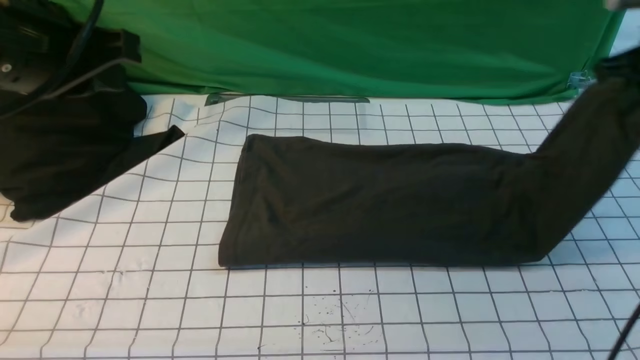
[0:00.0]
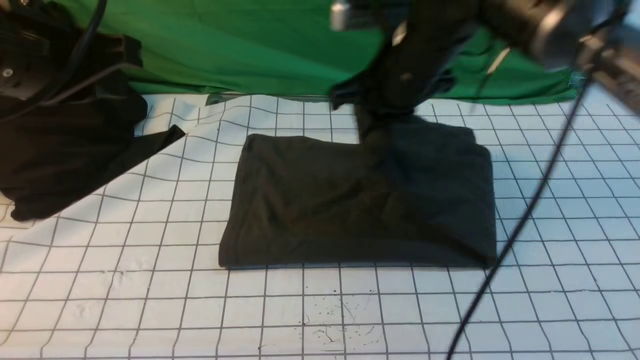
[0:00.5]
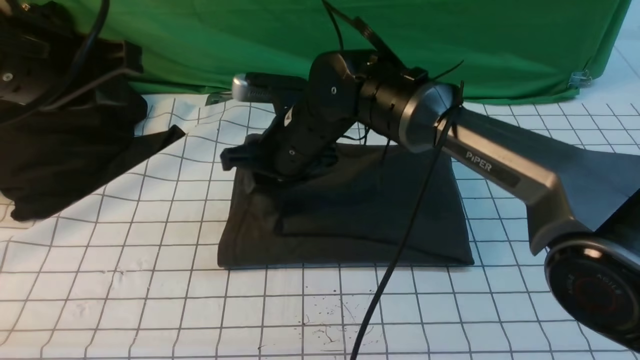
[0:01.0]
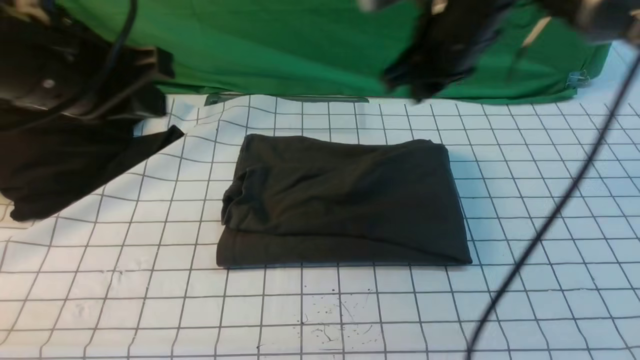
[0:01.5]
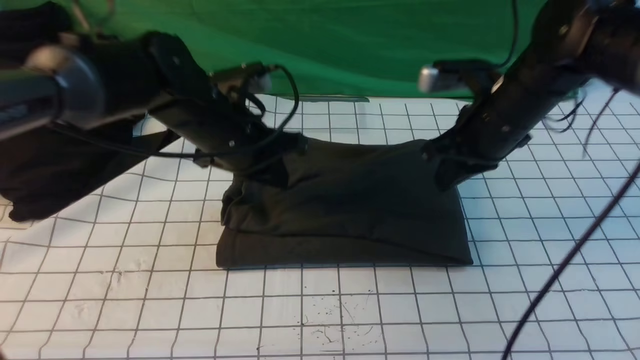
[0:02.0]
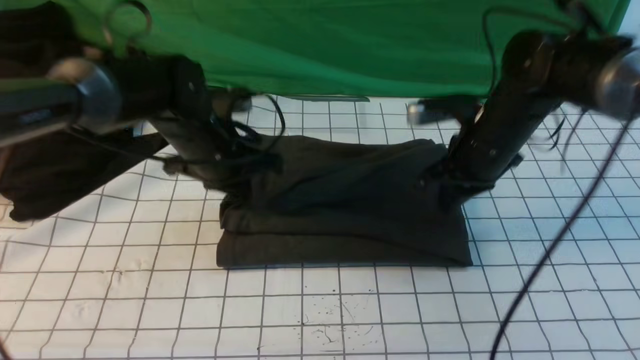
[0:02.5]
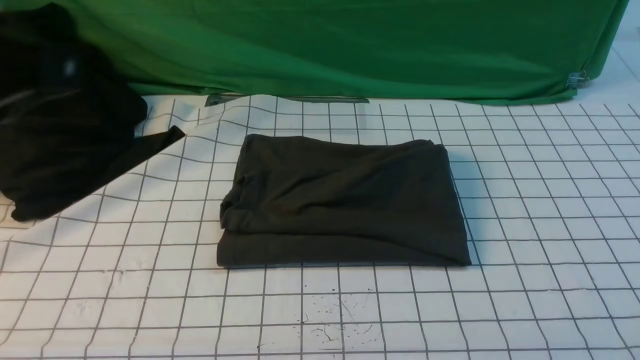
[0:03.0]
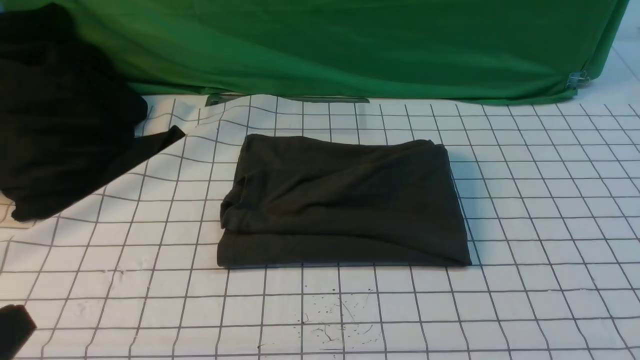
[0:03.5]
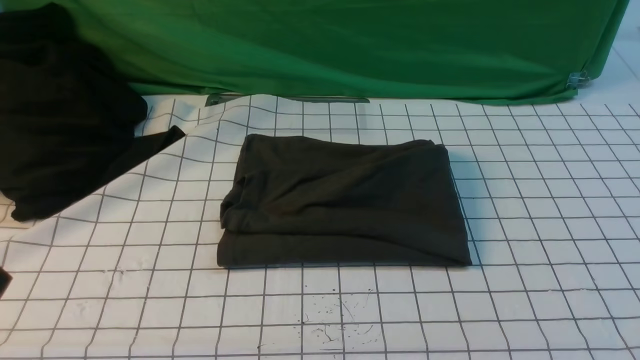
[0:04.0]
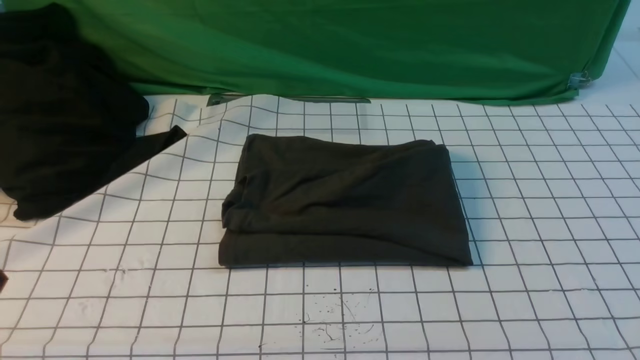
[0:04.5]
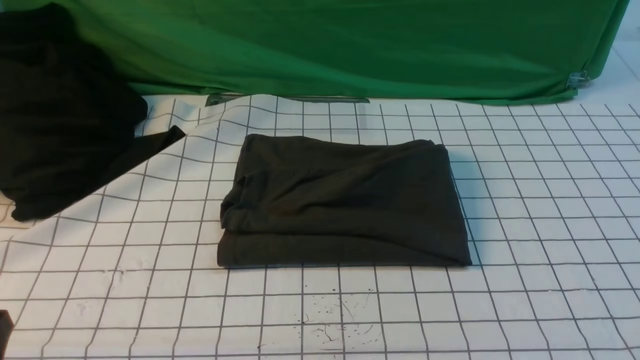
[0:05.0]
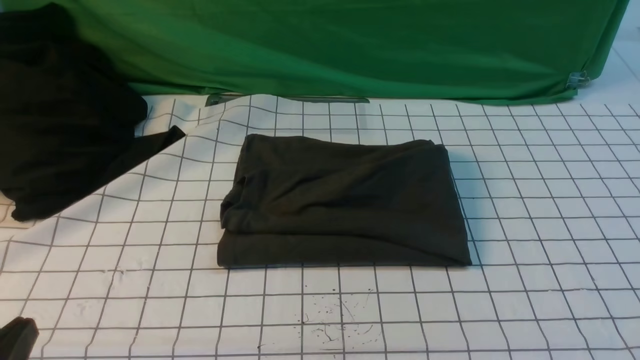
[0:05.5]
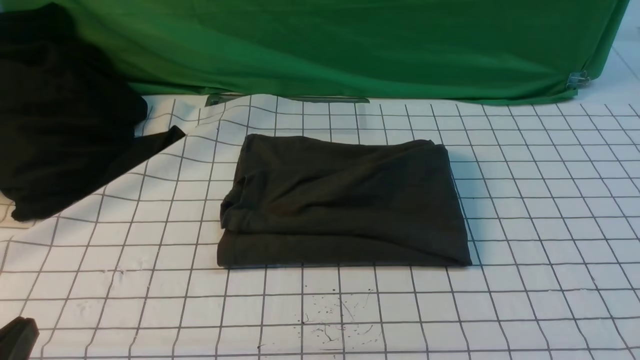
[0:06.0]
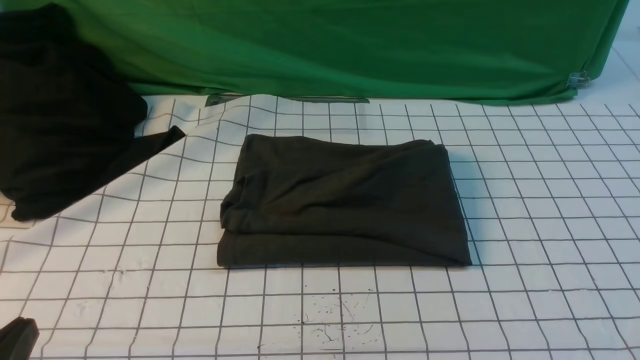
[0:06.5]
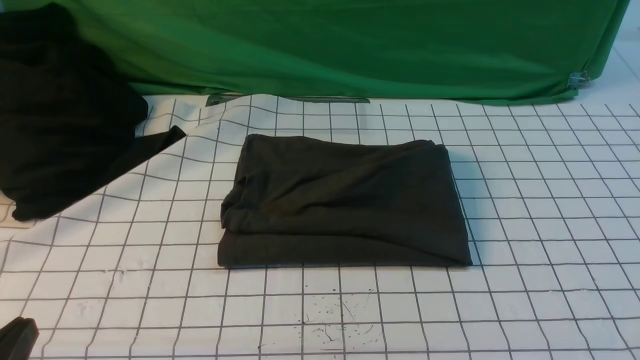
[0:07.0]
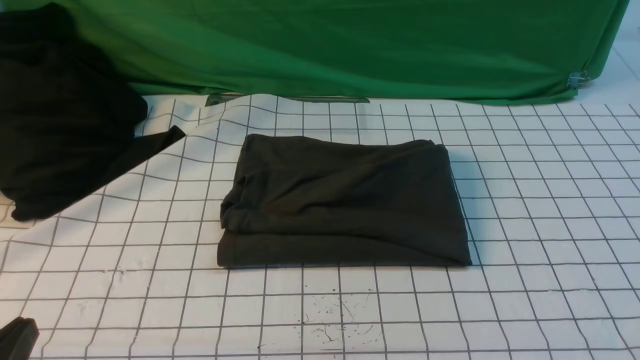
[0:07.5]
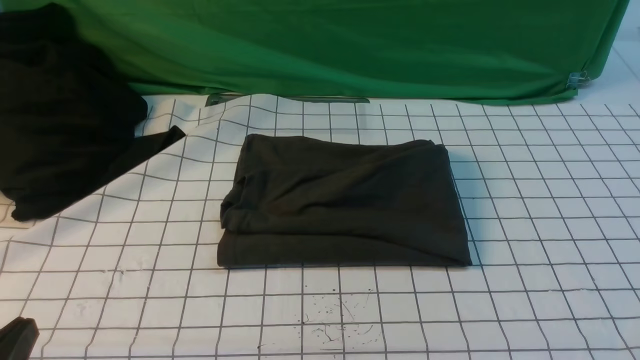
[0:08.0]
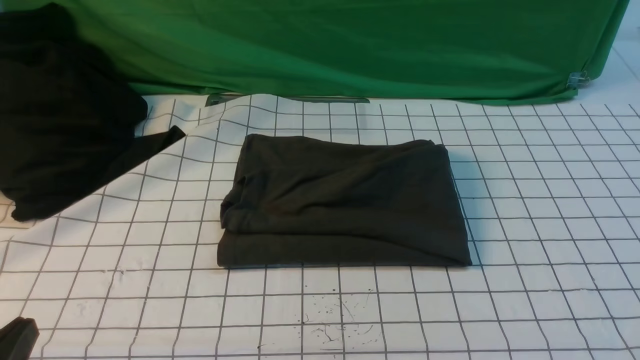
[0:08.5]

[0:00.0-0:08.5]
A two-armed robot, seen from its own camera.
Step, 0:00.0 to 0:01.0: use the right arm to drag the right edge of the fabric to the left and folds it over the left edge.
0:00.0 to 0:02.0: The left gripper travels downward, forward and to the right by some 25 cm. The right gripper goes approximately 15 cm to the left and downward, and opens and closes again.
0:02.0 to 0:04.0: The grippers both shift backward by approximately 35 cm.
0:04.0 to 0:06.5: The left gripper travels downward by approximately 10 cm.

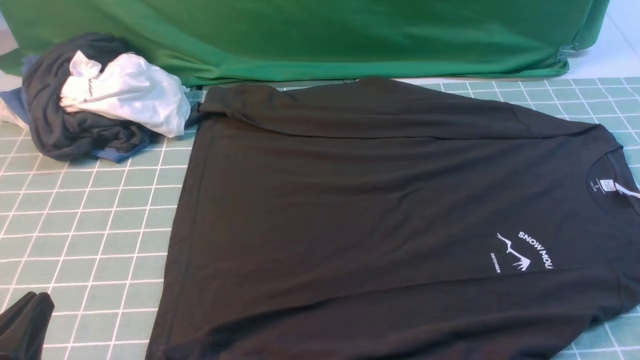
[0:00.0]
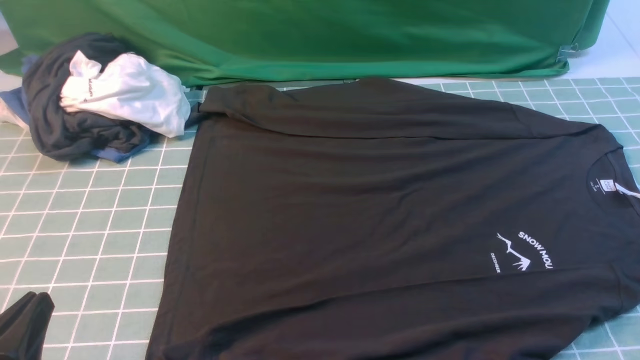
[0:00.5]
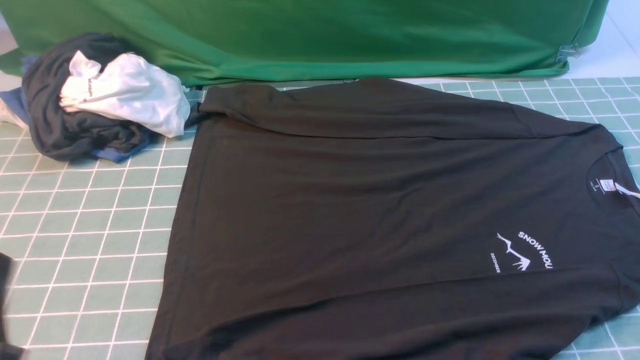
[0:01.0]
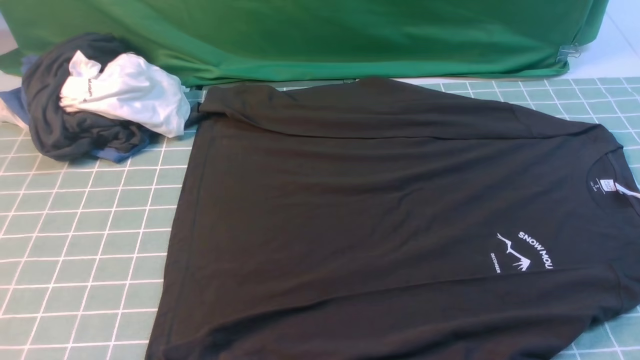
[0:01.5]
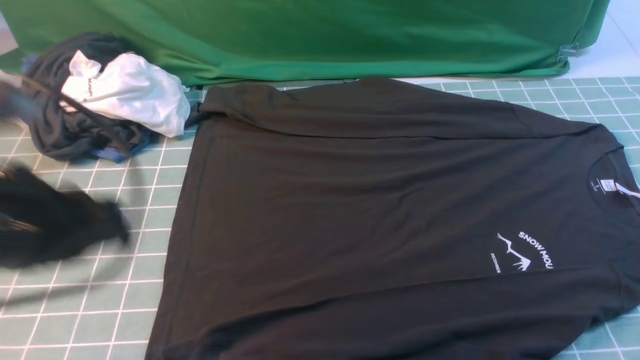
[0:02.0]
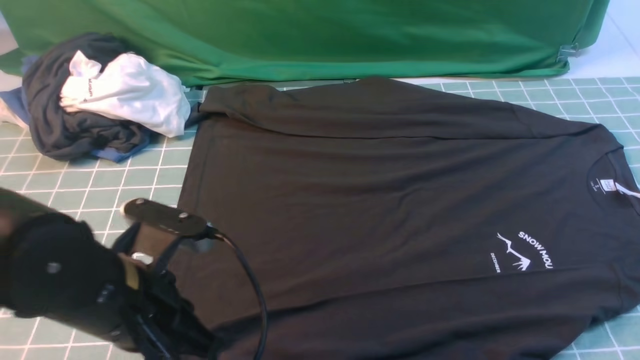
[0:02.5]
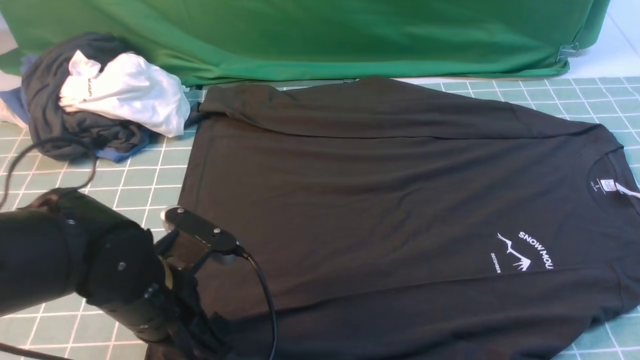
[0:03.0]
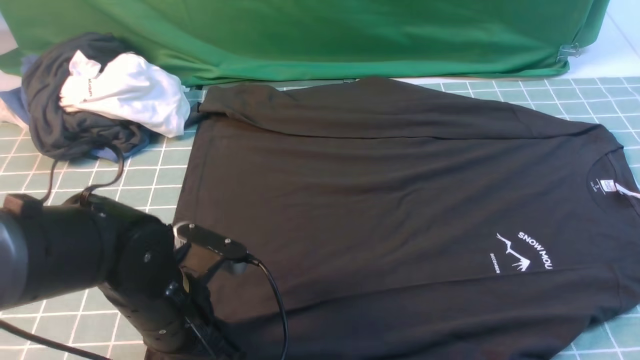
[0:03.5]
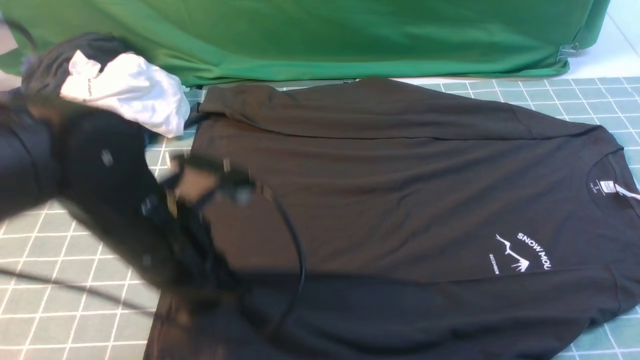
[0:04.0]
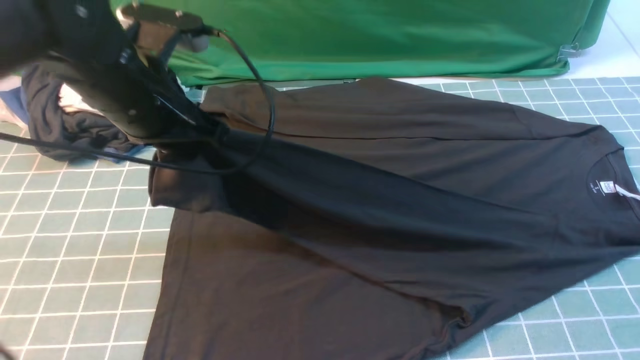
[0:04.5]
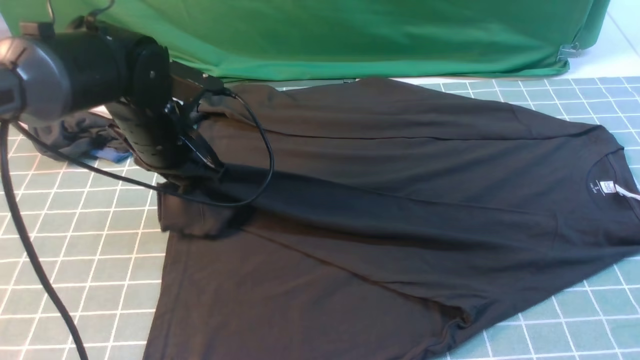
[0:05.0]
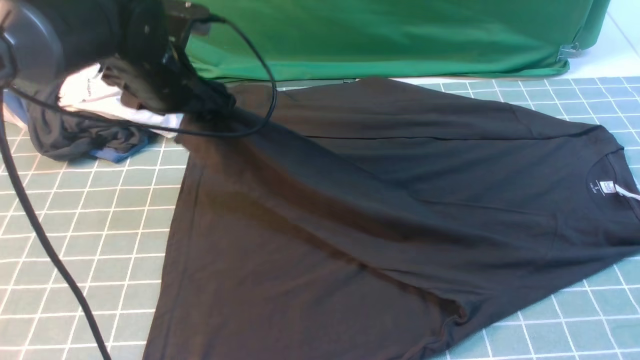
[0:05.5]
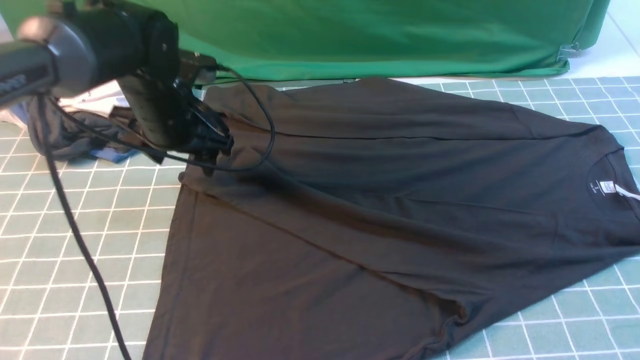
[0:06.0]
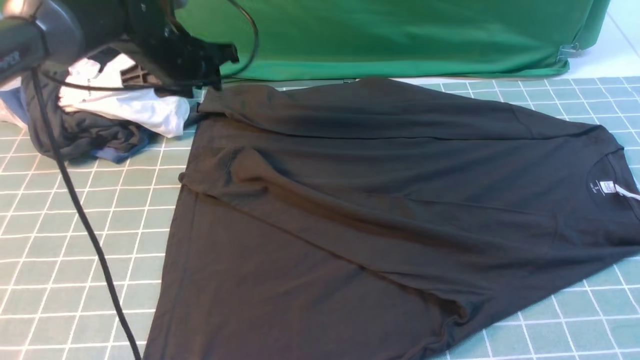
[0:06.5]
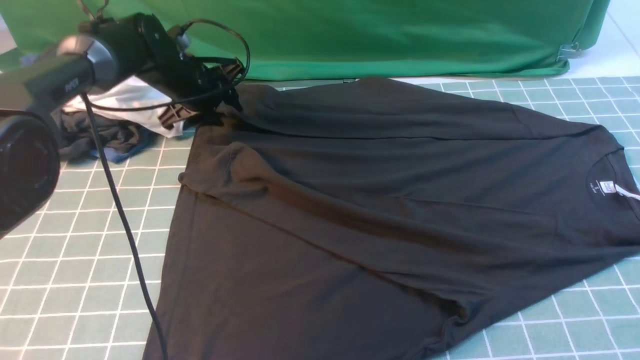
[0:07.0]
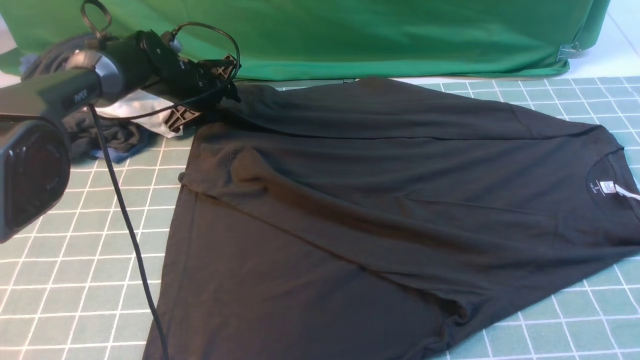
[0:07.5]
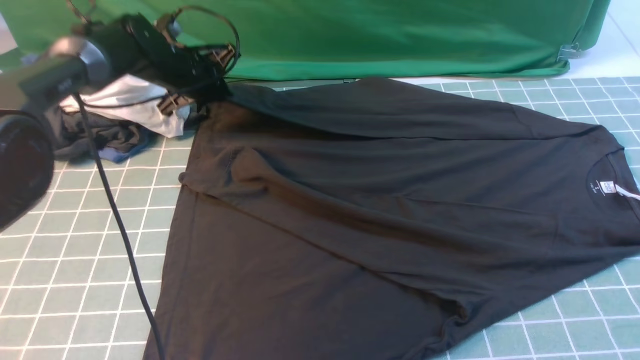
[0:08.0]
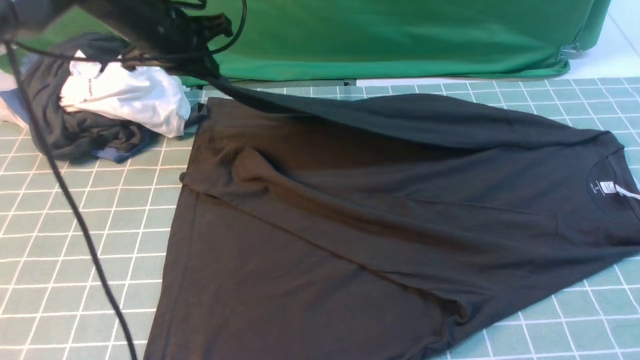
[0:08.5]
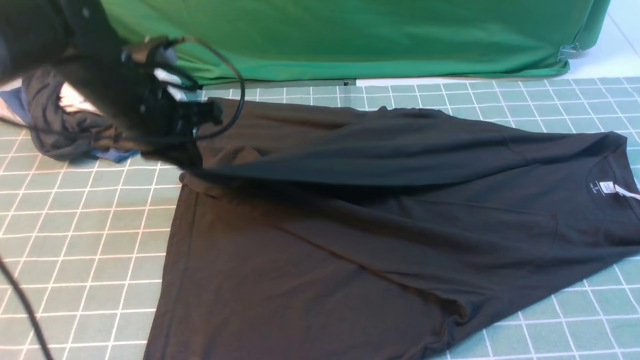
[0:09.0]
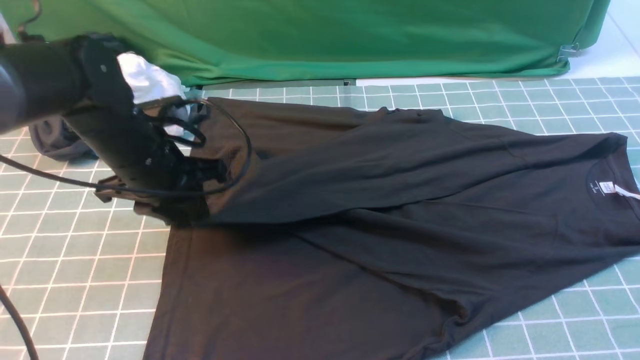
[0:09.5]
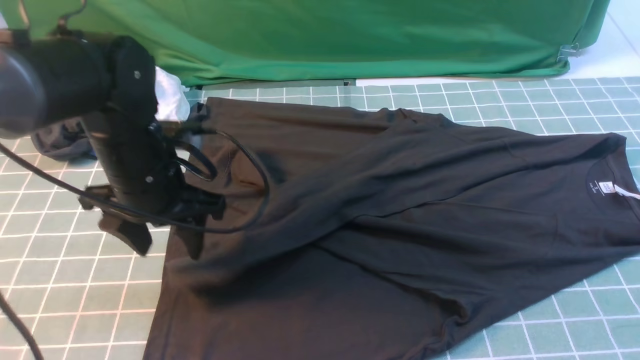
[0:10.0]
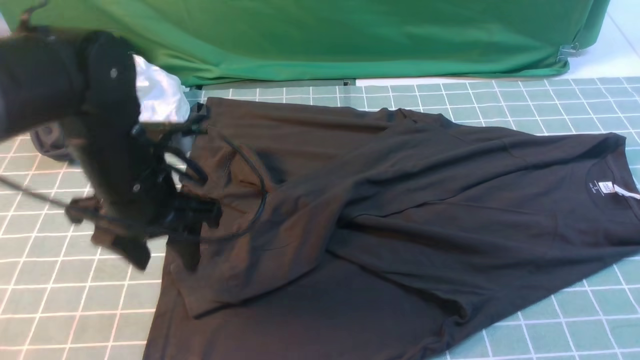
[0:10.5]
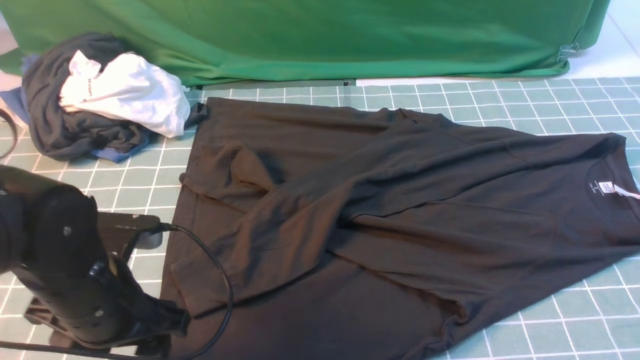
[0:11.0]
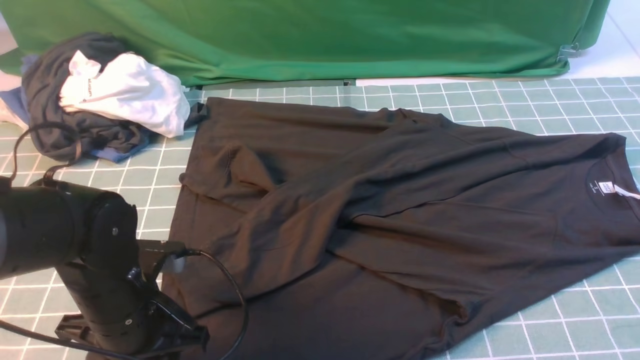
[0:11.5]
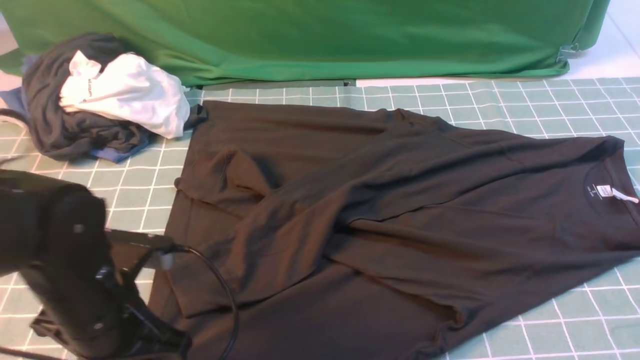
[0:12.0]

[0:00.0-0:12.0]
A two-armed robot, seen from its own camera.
Step, 0:00.0 to 0:03.5: use the left arm to clamp the cuff closest to it.
Step, 0:04.5 to 0:06.0: use the left arm to drag and place the cuff at the centered position on the left edge of the fabric.
Step, 0:06.5 to 0:08.0: use the left arm to clamp the cuff farthest from it.
Step, 0:08.5 to 0:10.0: use the left arm to drag and drop the cuff onto the cuff closest to the left arm.
0:00.0 to 0:02.0: The left gripper goes approximately 15 cm upward and forward.
0:02.0 to 0:04.0: The right gripper goes roughly 15 cm upward and forward, and closes, while the left gripper heads to the right and forward, covering about 10 cm, travels downward and back again, some 15 cm each way, and opens and closes again.
0:04.0 to 0:06.0: The left gripper shifts some 20 cm forward, and opens.
0:06.0 to 0:08.0: The left gripper shifts roughly 10 cm forward, and closes its fingers.
0:08.0 to 0:10.0: The left gripper heads backward, covering about 20 cm, and opens its fingers.
0:10.0 to 0:12.0: The left gripper is displaced backward by approximately 15 cm, and closes its fingers.
